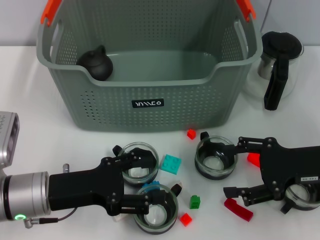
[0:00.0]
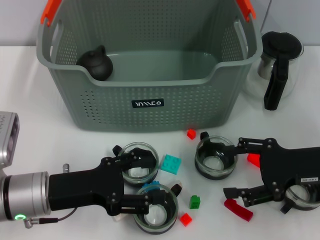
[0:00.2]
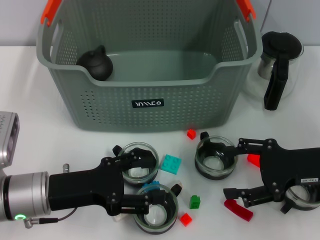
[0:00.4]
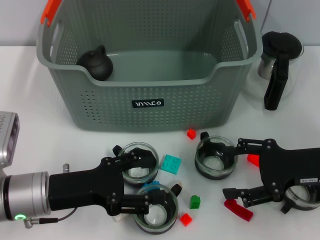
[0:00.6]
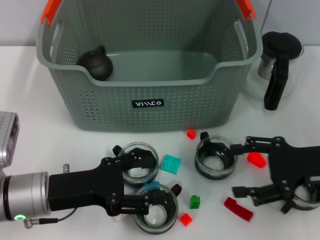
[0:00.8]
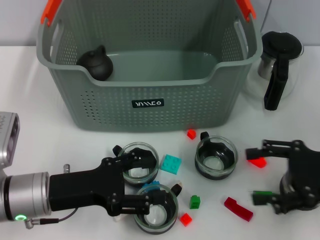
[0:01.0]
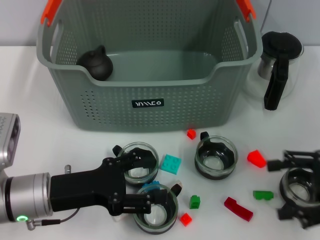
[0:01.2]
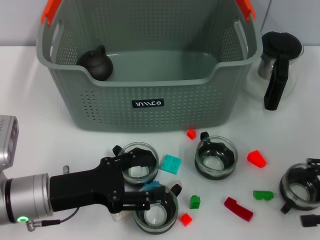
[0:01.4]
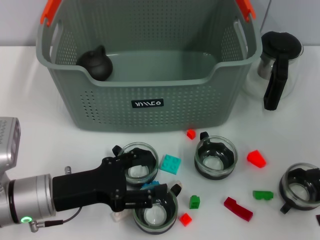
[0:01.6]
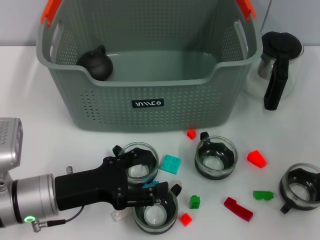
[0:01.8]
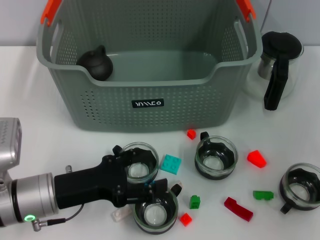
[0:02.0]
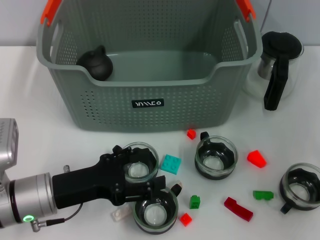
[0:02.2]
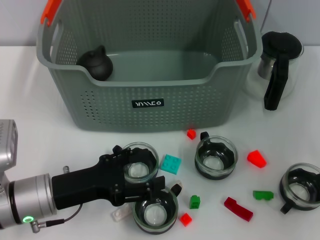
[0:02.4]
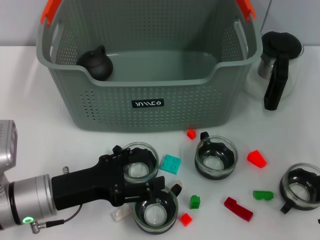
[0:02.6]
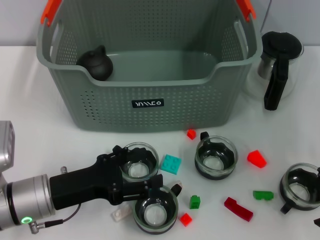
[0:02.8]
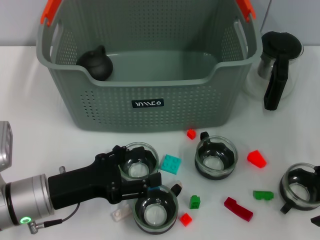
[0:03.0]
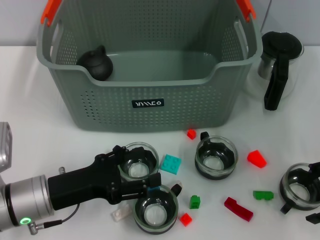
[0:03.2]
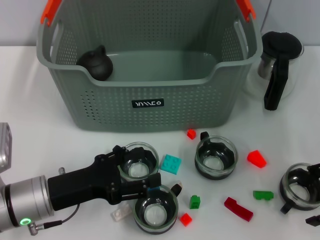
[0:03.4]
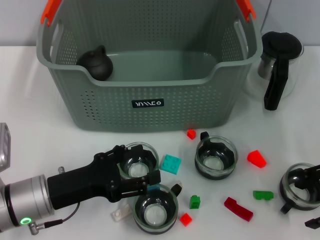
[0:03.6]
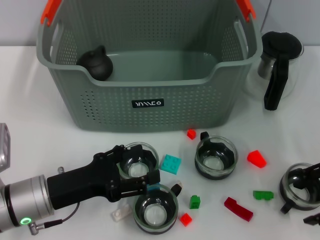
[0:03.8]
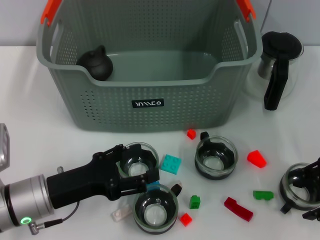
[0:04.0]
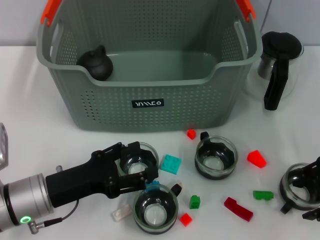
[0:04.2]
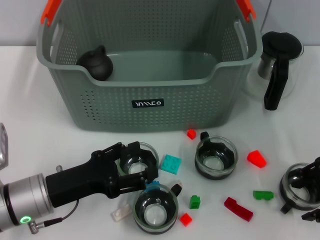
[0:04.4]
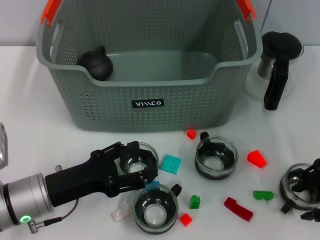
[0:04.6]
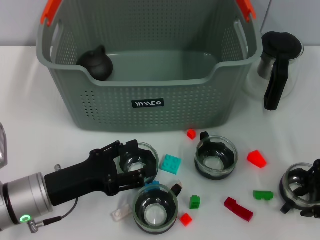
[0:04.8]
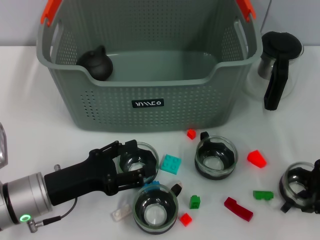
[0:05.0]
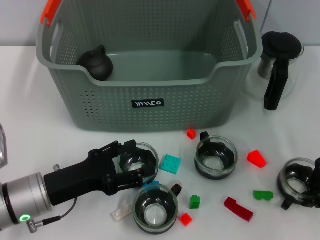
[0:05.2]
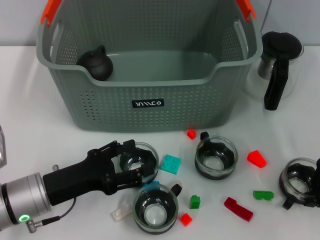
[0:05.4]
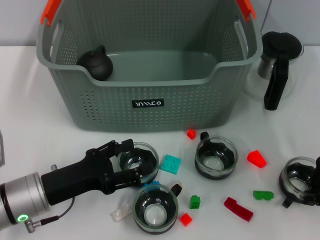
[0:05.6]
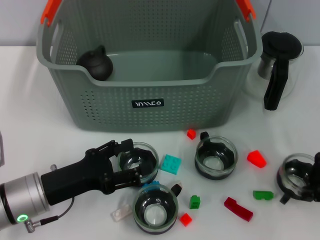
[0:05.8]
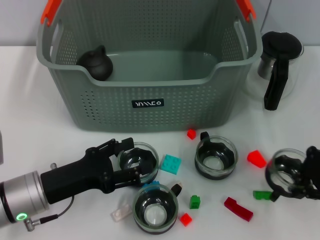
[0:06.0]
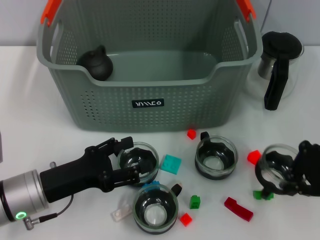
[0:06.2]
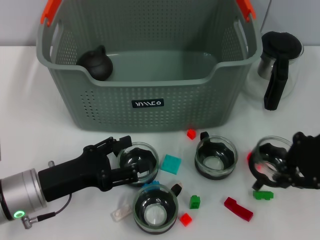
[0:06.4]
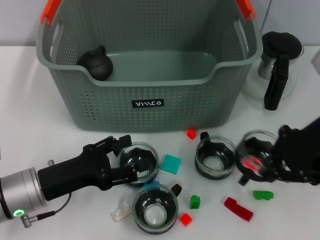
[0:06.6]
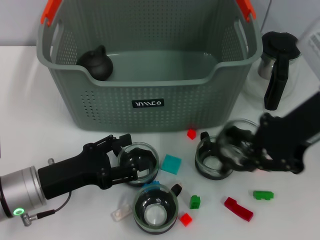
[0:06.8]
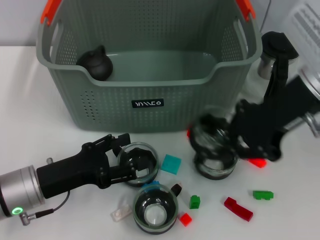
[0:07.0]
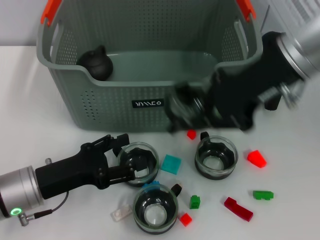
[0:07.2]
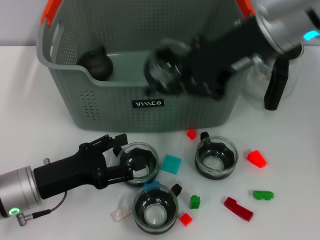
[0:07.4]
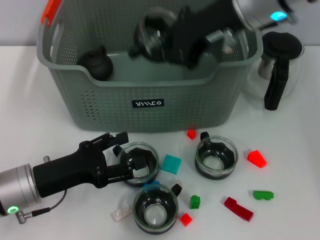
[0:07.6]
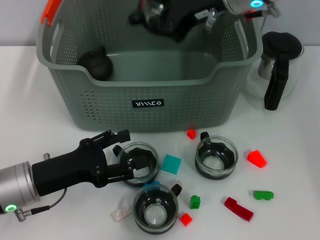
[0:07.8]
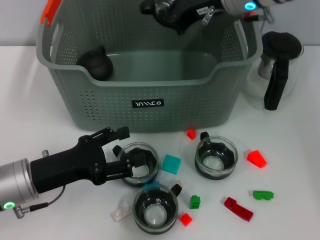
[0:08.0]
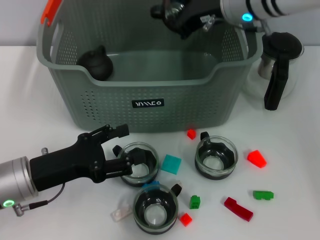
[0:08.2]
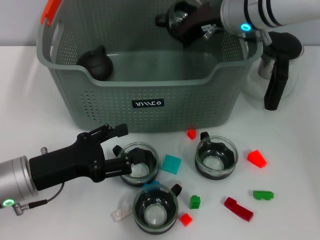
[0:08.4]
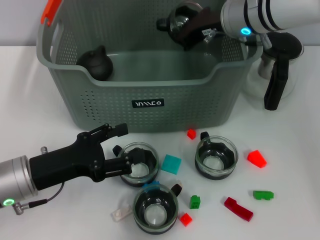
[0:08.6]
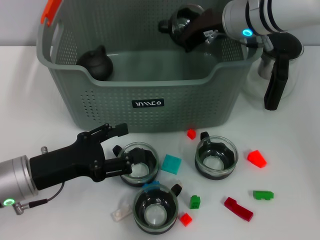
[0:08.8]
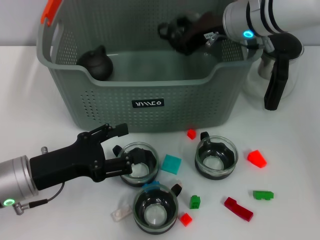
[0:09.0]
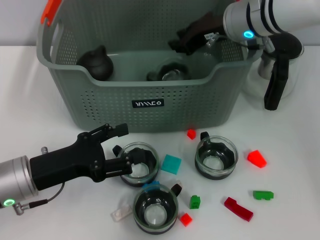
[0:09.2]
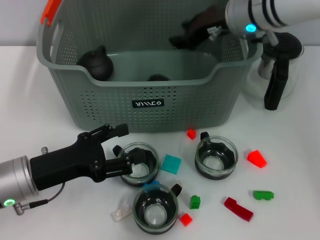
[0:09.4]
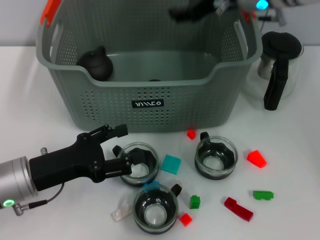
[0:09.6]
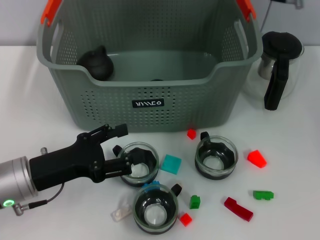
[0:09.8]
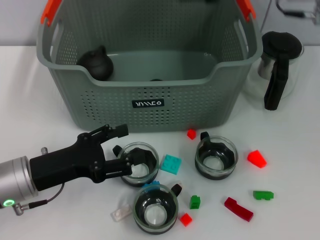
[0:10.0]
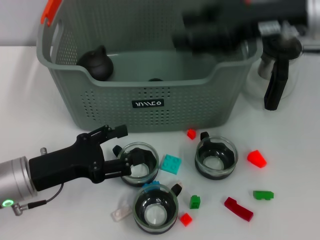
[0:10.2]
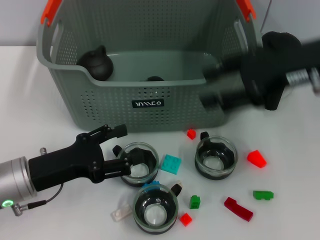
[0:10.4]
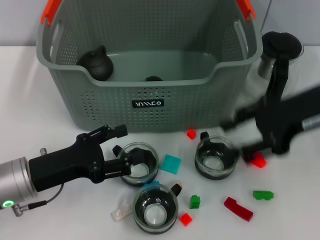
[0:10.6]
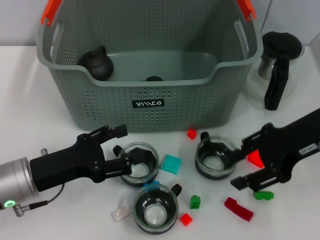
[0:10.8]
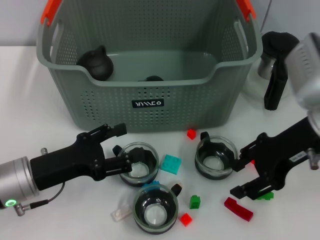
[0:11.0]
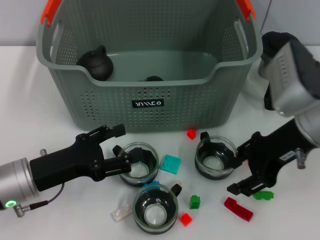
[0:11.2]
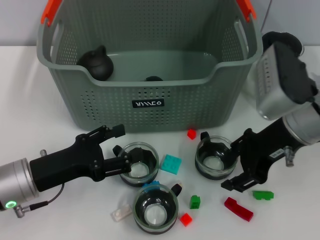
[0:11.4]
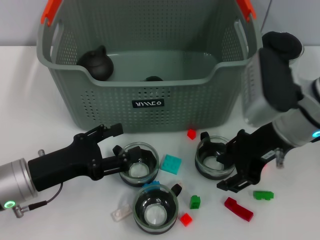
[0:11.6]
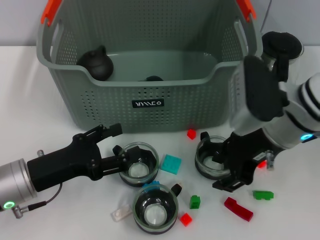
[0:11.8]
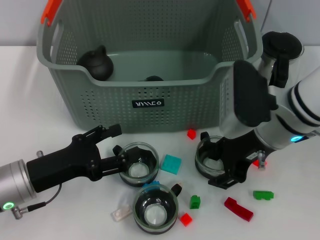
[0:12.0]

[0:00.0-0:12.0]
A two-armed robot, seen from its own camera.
Task of the whole recording: pick up the teacup on the table and place it into the storage bin, pick up the block on the table and place it into the storage bin.
Step, 0.0 to 5.2 s: Grasp the cup with right gripper.
Step, 5.4 to 9.4 s: Place the cup in the storage box with right gripper.
0.0 to 1.6 s: The right gripper travels to the right by approximately 10 cm.
1.6 to 3.0 s: The right gripper moves roughly 5 cm.
3.0 to 4.4 s: The grippers move only a little.
4.4 to 6.0 s: The right gripper closes.
6.0 to 7.6 s: The right gripper travels to the left, upward and forward by approximately 20 cm.
7.6 to 9.0 s: The right gripper heads downward, covering about 10 cm.
9.0 to 10.4 s: The right gripper goes some 15 cm backward and to the right, and opens up.
10.4 to 12.0 s: The right gripper heads downward and to the left, covering approximately 10 cm.

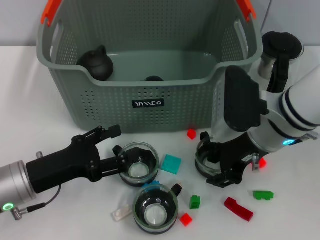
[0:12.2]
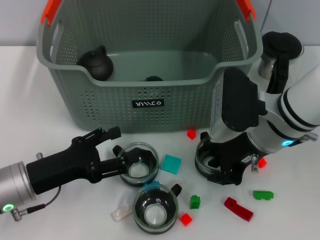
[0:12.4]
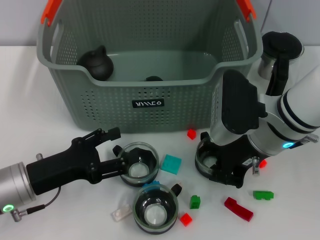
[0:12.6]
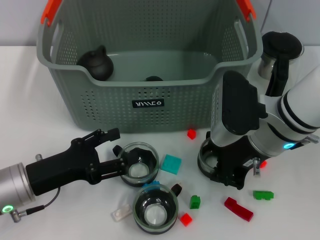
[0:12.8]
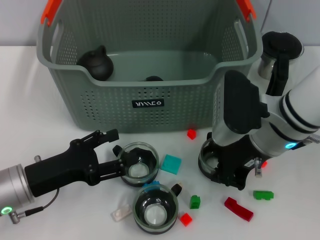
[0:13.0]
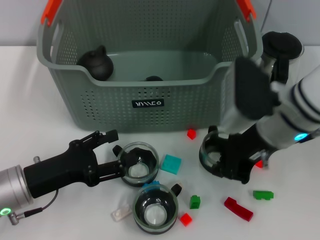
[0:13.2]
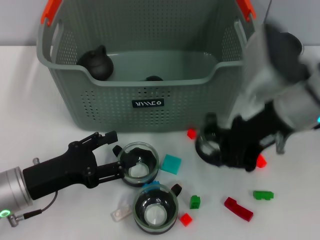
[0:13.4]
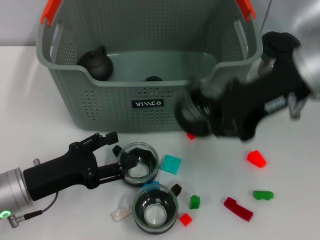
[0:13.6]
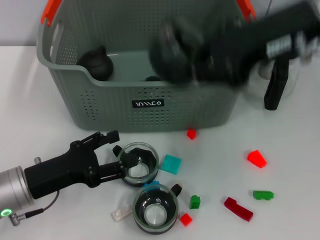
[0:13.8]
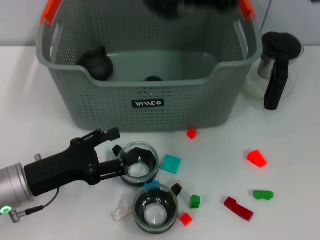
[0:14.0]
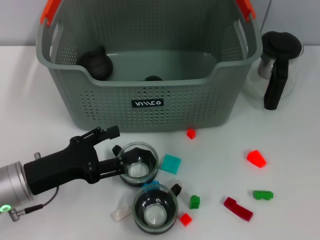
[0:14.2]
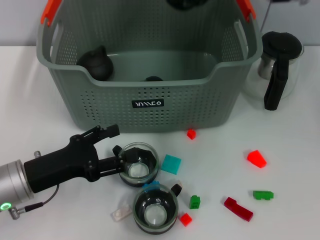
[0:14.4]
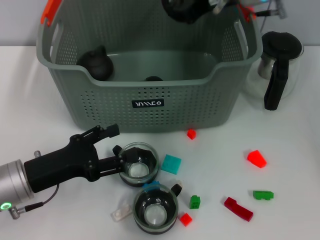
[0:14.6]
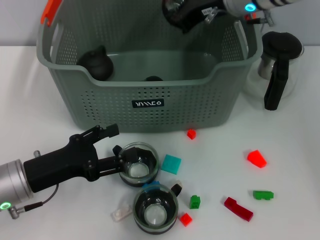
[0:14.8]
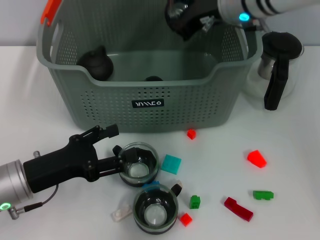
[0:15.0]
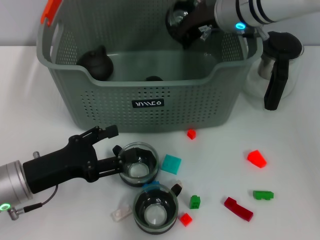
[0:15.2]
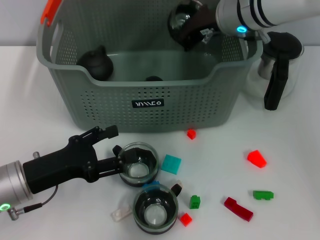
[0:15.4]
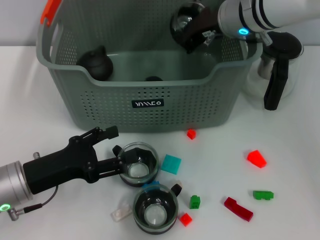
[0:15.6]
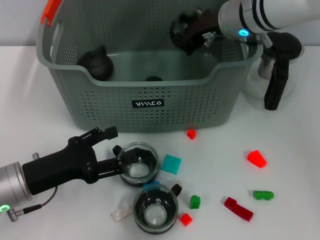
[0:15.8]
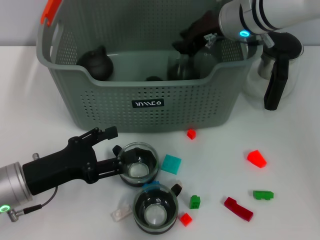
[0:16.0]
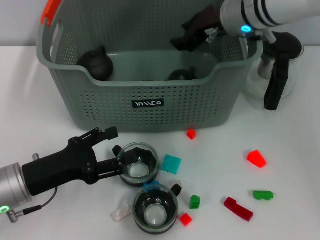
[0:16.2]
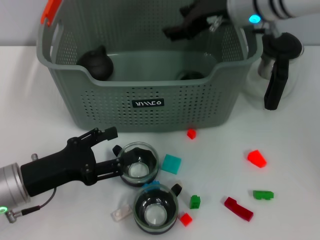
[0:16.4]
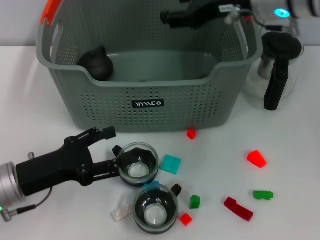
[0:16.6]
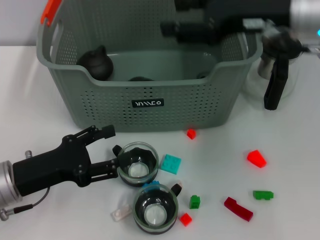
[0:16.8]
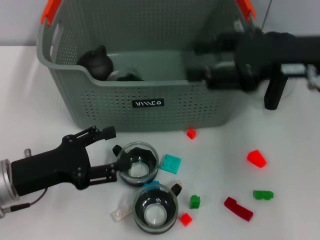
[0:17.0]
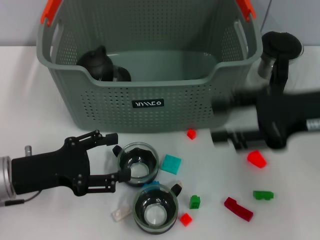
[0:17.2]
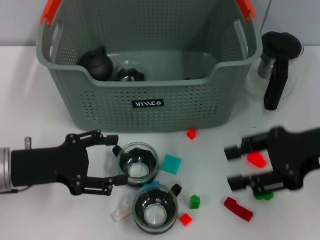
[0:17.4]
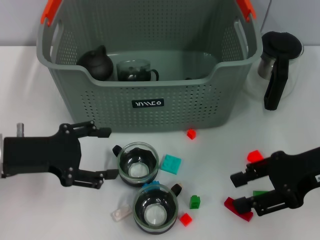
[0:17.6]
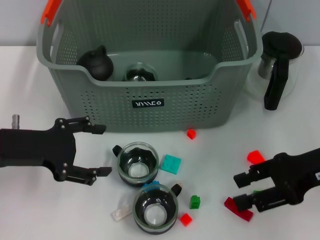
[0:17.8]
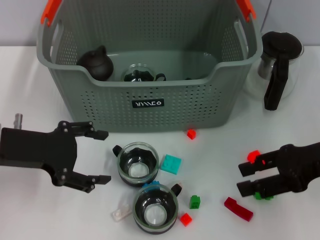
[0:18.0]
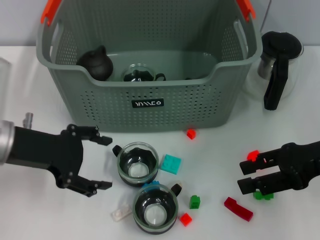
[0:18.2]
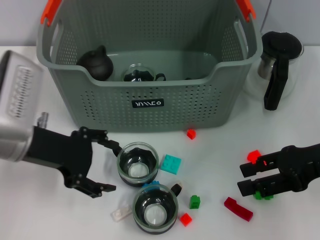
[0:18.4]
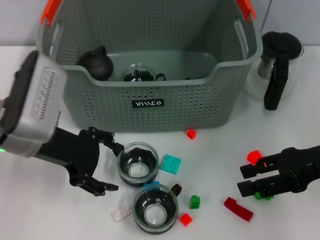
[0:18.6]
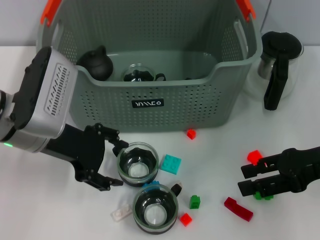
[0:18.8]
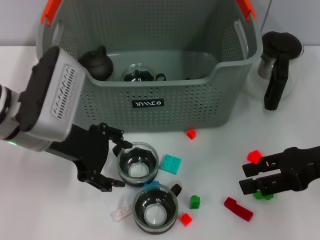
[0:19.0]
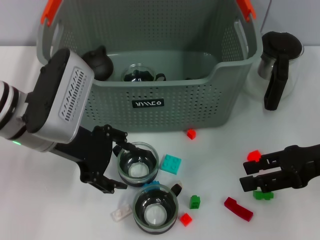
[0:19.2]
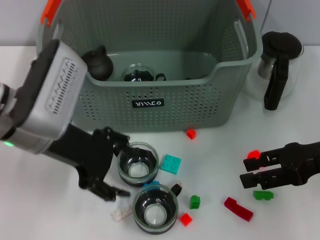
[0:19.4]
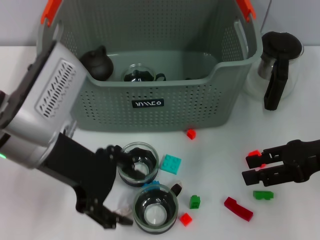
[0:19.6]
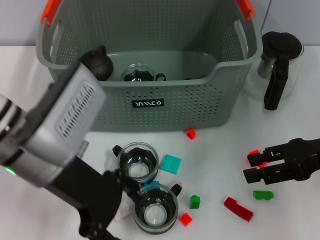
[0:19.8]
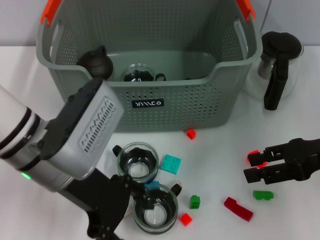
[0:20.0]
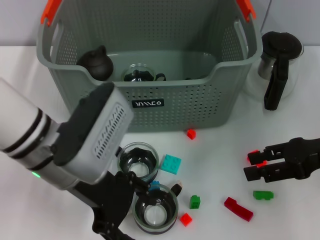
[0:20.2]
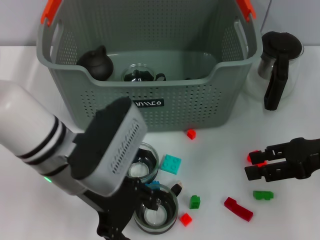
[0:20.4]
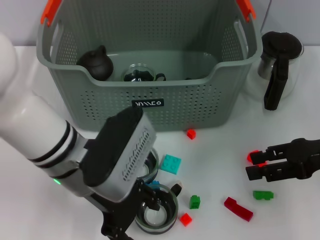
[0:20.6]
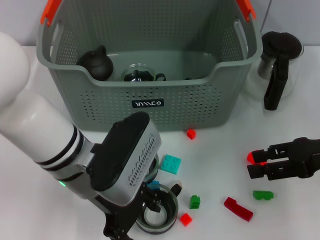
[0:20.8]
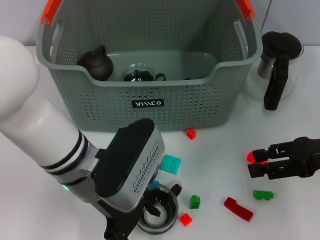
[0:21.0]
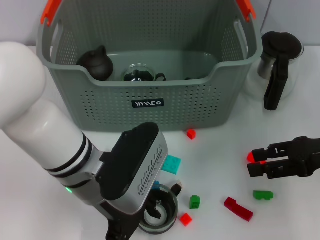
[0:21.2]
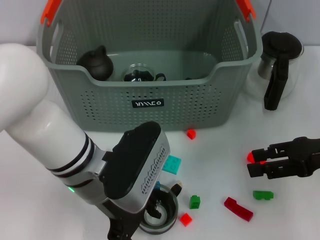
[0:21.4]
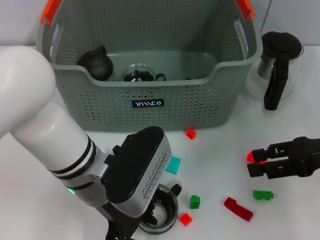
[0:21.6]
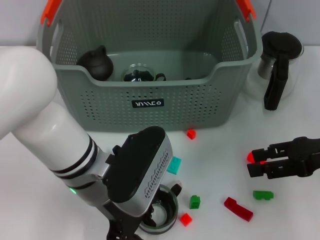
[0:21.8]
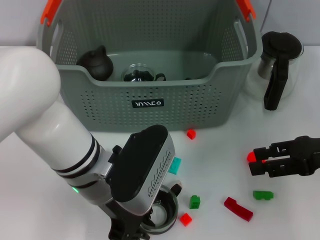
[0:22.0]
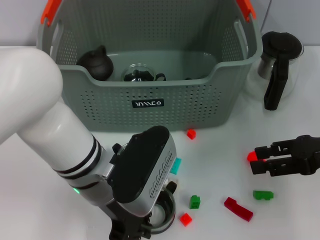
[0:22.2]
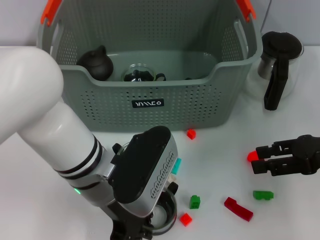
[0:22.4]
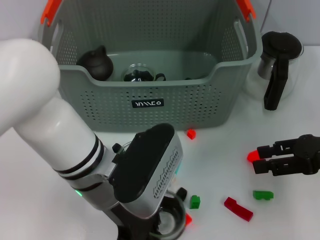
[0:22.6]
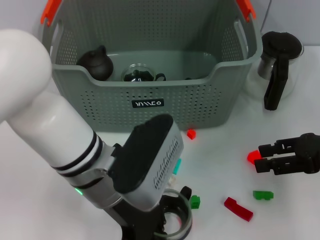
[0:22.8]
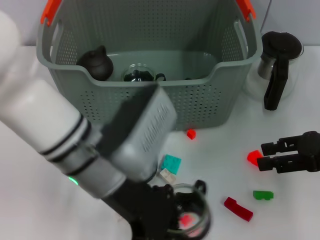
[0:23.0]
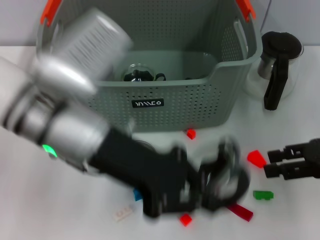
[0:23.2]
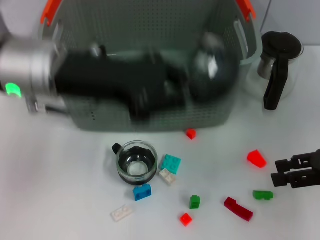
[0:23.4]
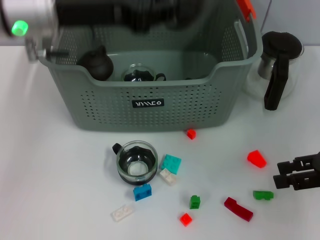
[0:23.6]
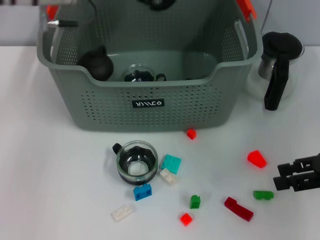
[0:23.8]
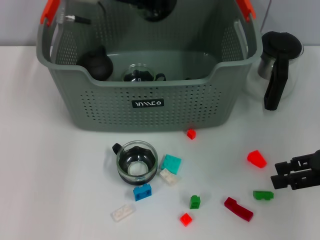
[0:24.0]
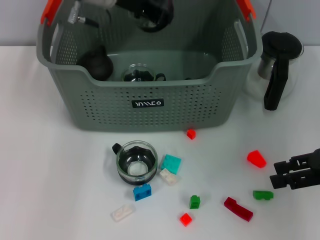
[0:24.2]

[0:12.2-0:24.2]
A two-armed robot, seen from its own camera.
Task of the whole recording: pick up the teacup on the table and place it into the storage bin, pick up the block on the table and place it into the storage bin.
Step, 13.0 to 16.2 s: Place the cup in the storage box with right gripper.
Step, 16.4 to 22.2 s: Grasp the cup with left gripper.
12.2 to 13.8 s: The right gripper is displaced upward by approximately 20 cm, and closes.
13.8 to 15.2 s: The right gripper goes approximately 20 cm forward, downward and to the left.
15.2 to 16.6 s: The right gripper changes place by approximately 10 cm, and opens.
16.6 to 18.2 s: The right gripper travels to the right, backward and downward by about 20 cm. The left gripper shifts roughly 10 cm upward and forward.
18.2 to 19.8 s: The left gripper shifts approximately 10 cm to the right.
19.8 to 21.2 s: The left gripper travels to the right and downward by about 10 cm.
21.2 to 22.6 s: The left gripper closes.
22.6 to 24.2 s: The left gripper travels forward and upward by roughly 20 cm.
